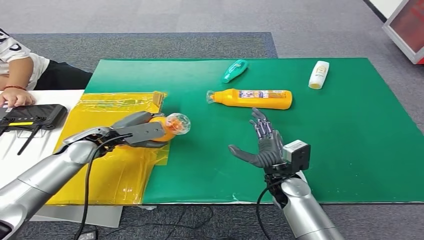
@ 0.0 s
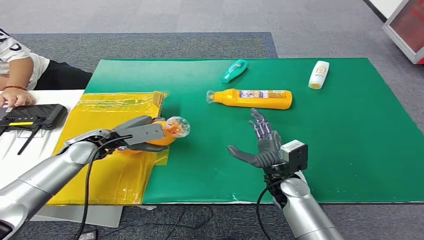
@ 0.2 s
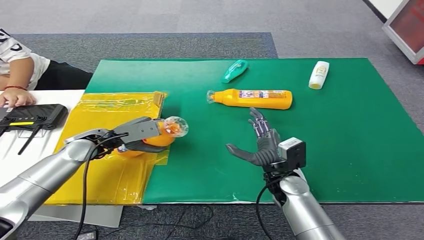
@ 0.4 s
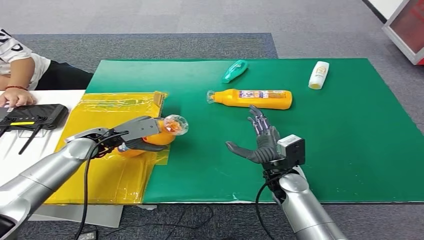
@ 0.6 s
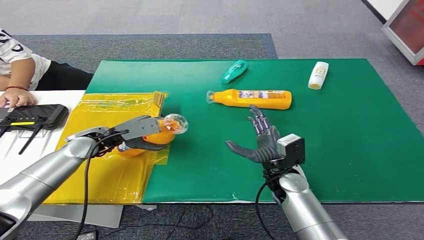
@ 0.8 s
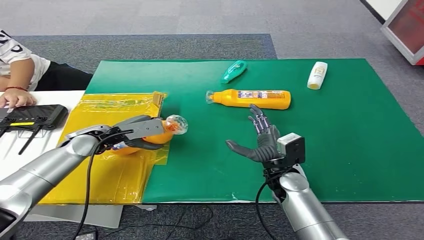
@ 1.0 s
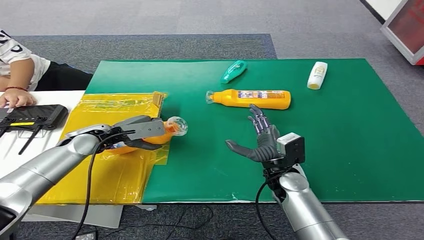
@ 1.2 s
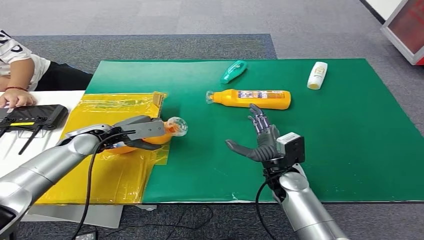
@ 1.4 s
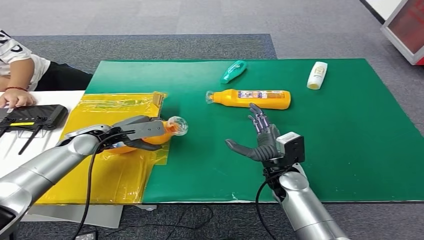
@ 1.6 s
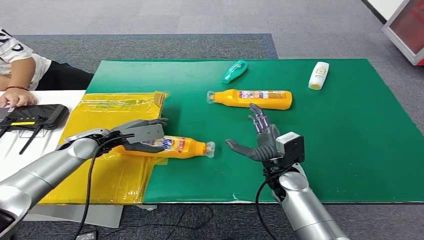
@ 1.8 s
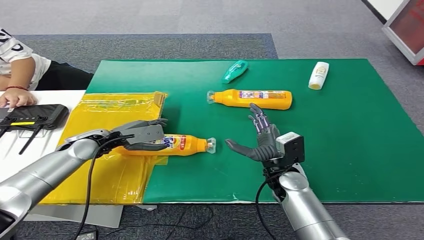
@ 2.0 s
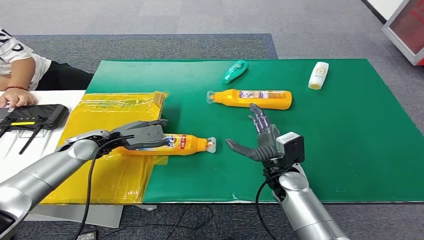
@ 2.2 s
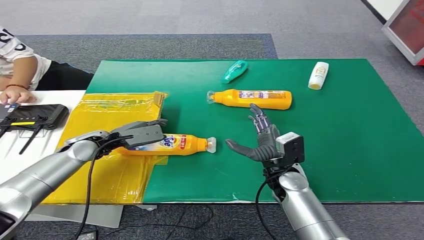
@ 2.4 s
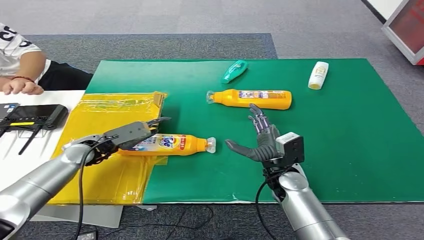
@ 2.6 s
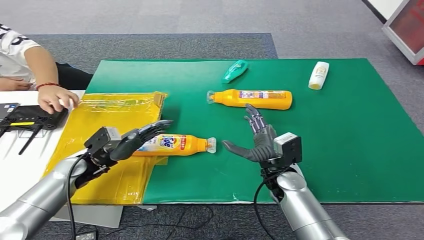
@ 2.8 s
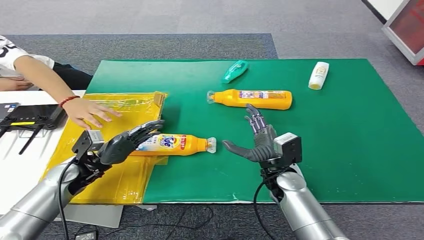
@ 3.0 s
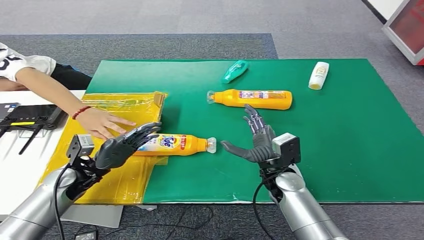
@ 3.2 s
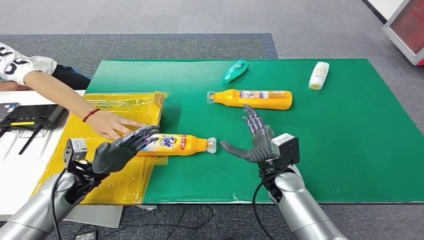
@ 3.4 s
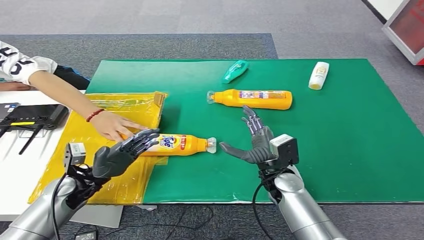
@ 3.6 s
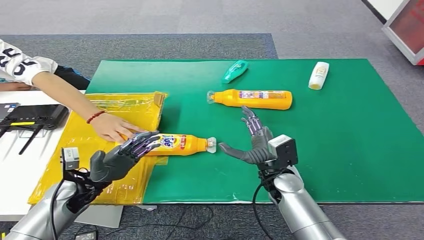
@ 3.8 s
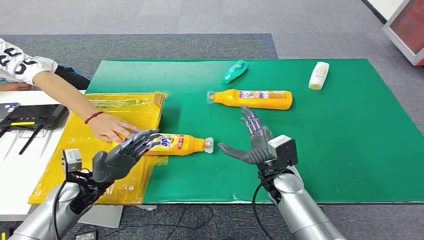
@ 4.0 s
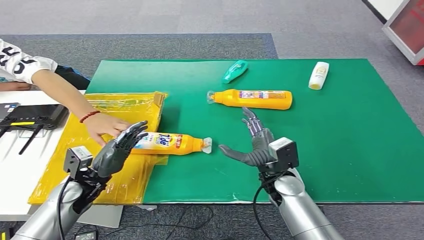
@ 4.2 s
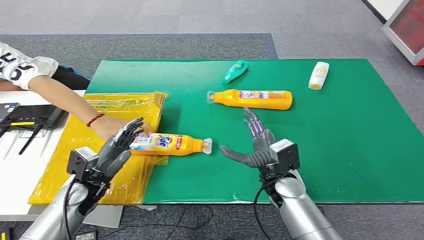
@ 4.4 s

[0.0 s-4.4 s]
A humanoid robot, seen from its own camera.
Step, 0.0 to 4.4 s: Turn the bottle to the front side.
0.0 to 1.4 s: The hands stay close to where they were, moving slightly.
1.4 to 3.0 s: The left hand is displaced backward and downward by approximately 10 cm.
3.0 to 4.4 s: The left hand moves roughly 5 cm.
